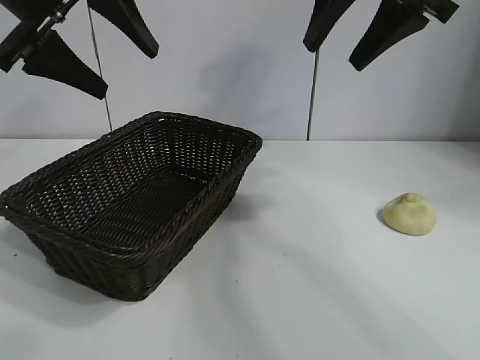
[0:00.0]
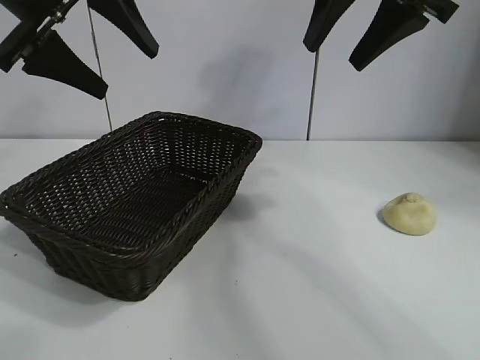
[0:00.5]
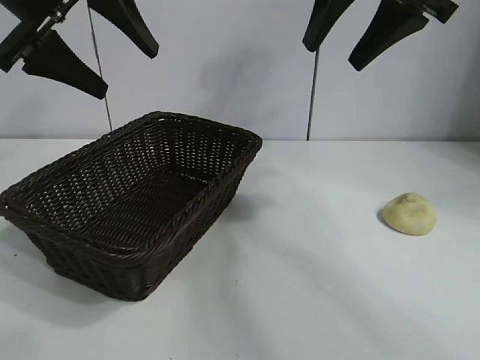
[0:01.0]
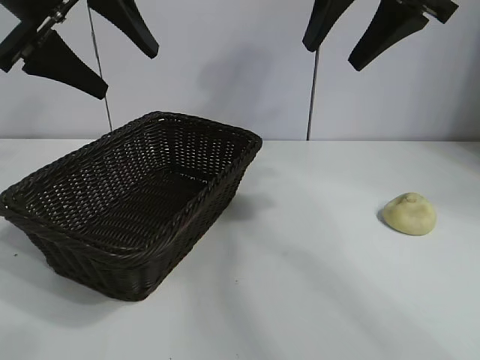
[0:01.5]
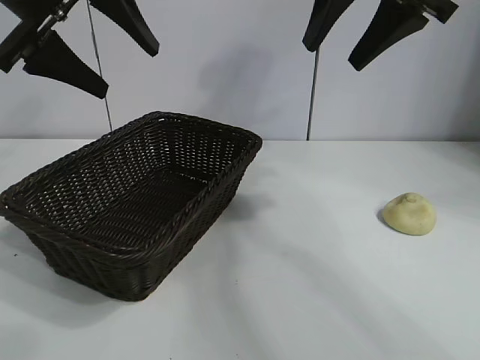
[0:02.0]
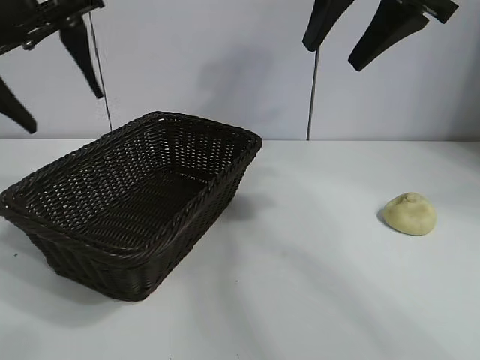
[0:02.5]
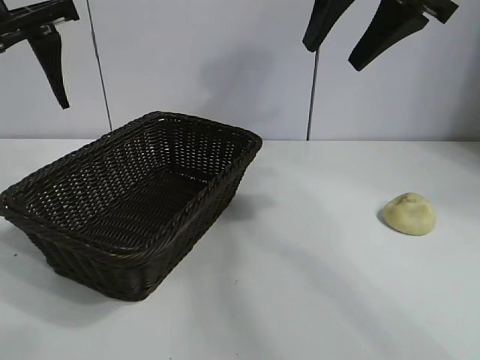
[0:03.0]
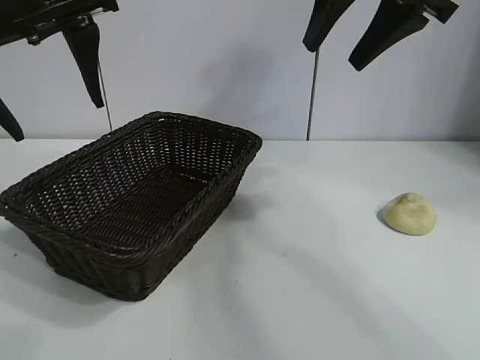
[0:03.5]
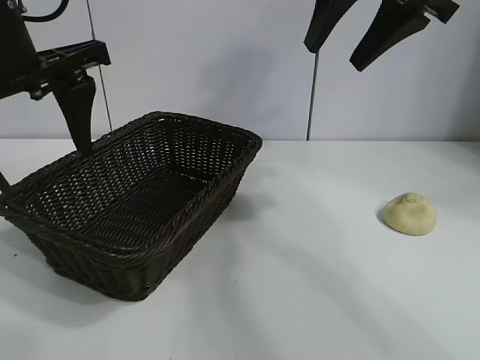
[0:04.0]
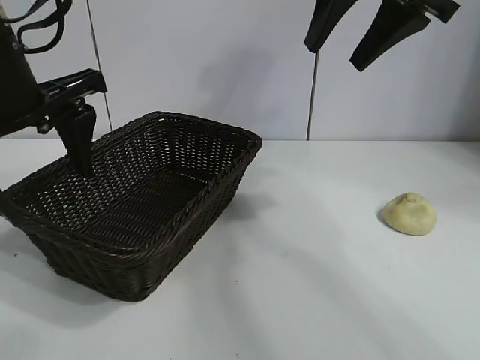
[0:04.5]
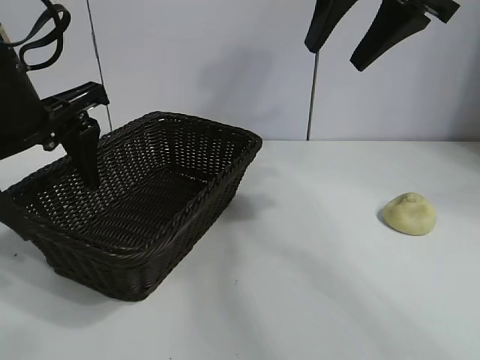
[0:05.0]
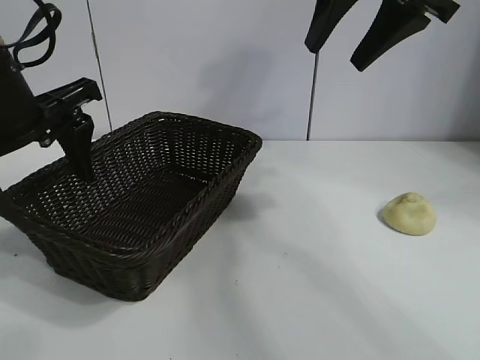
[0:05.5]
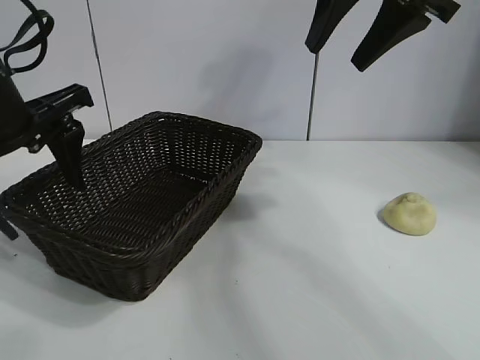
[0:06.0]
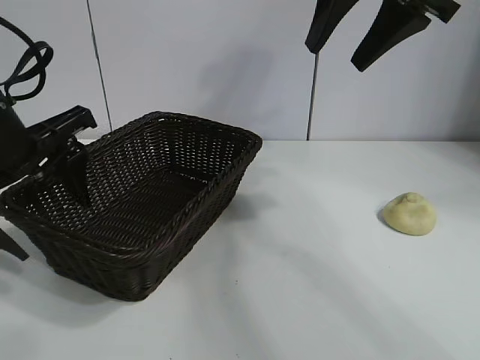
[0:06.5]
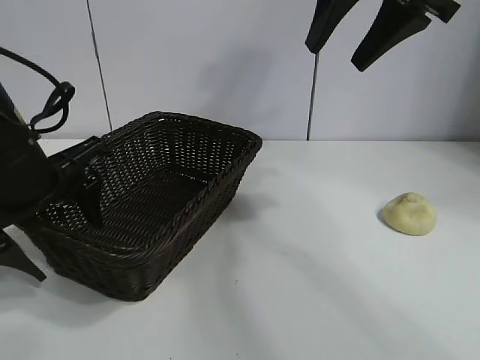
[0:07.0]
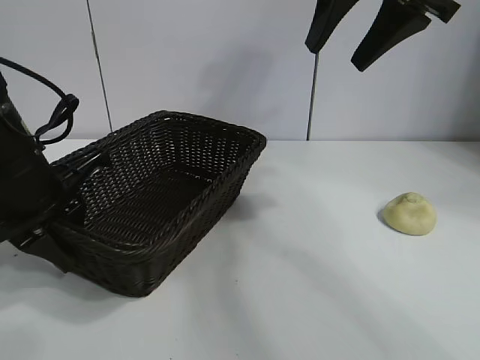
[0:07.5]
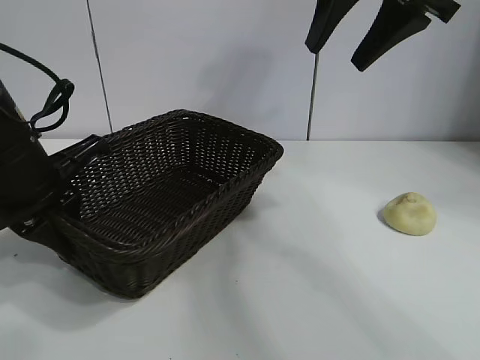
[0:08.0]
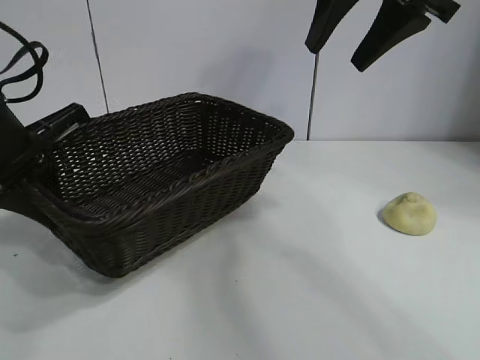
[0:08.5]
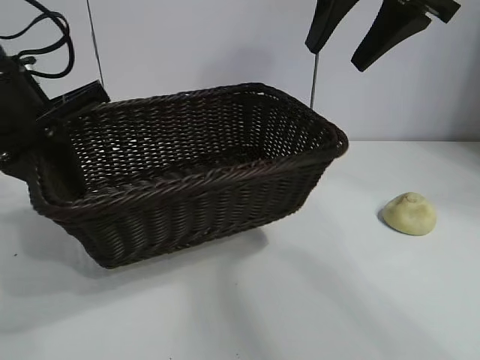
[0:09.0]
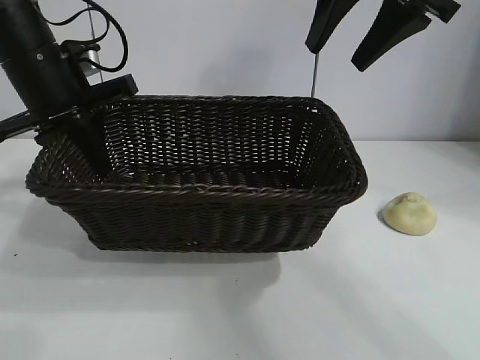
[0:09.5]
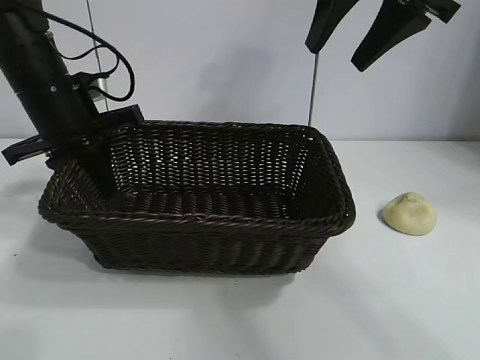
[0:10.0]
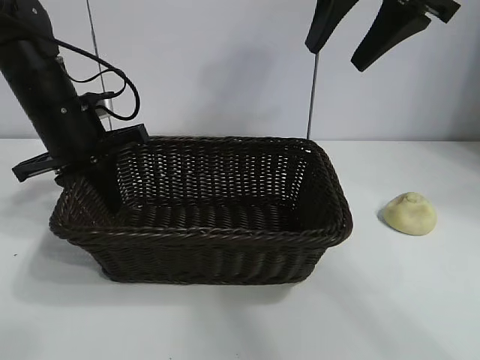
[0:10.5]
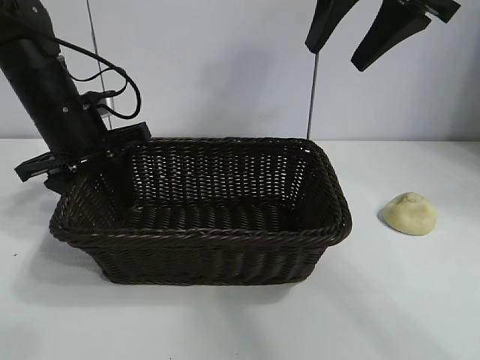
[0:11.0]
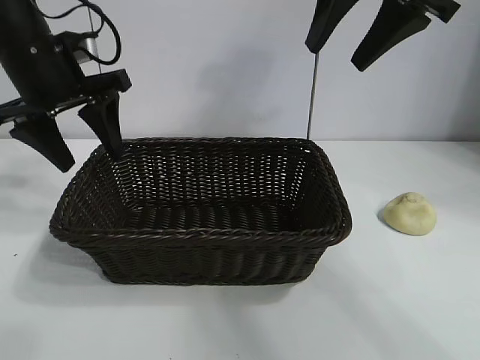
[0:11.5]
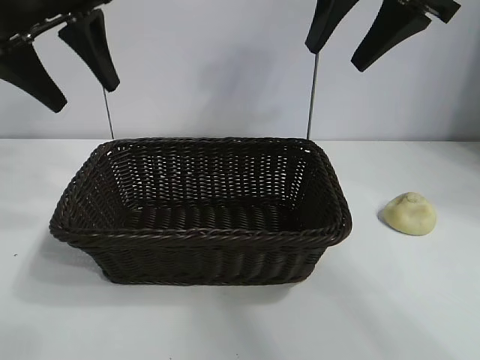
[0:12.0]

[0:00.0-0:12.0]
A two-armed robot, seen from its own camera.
Task of the whole recording: pick up the egg yolk pastry and put it into the basket.
Step, 0:02.0 to 0:07.5: Grasp the basket with left gripper.
Step, 0:08.0 to 0:11.0: Place the basket in the center of view with left gripper.

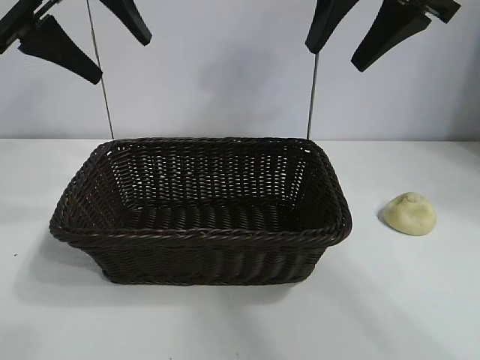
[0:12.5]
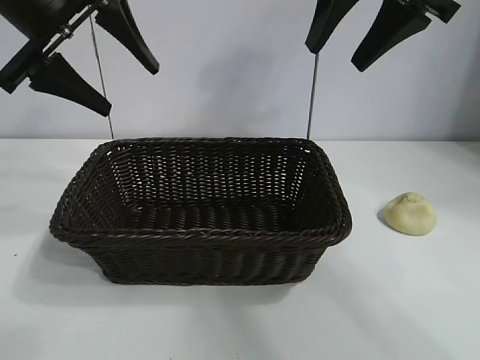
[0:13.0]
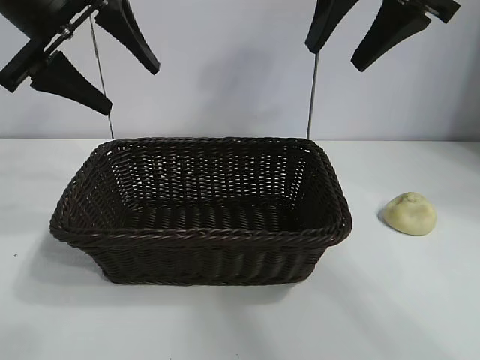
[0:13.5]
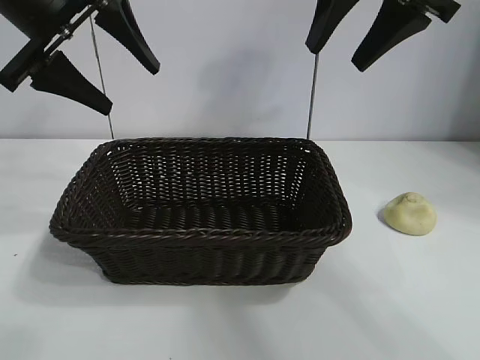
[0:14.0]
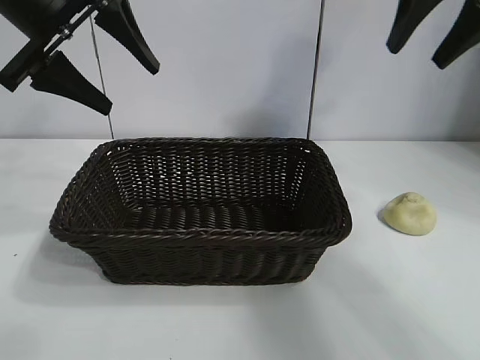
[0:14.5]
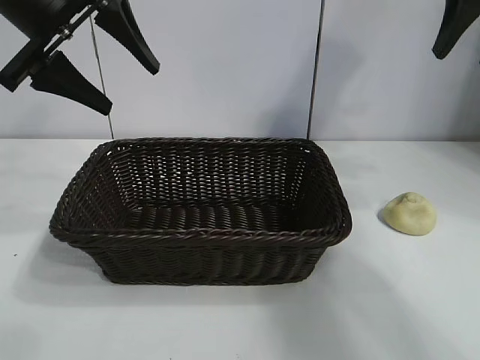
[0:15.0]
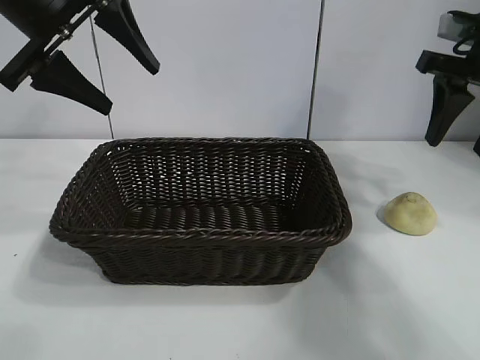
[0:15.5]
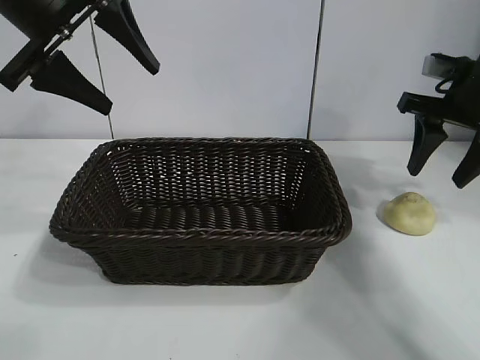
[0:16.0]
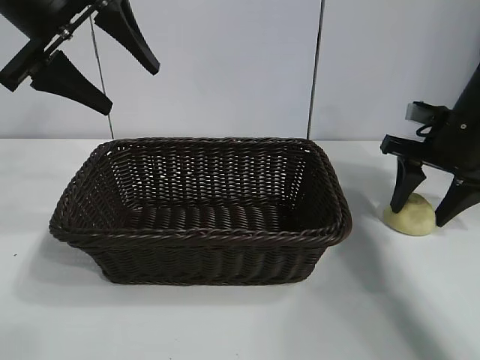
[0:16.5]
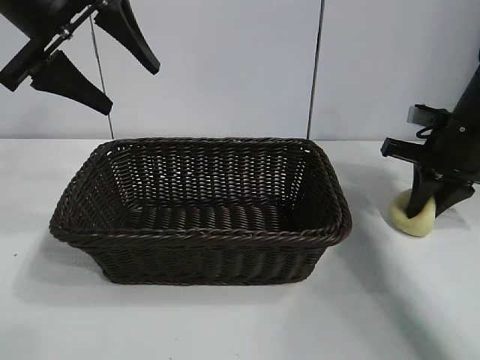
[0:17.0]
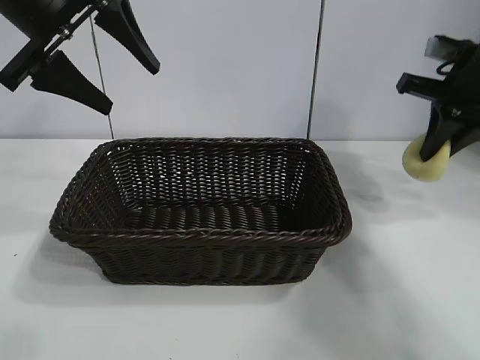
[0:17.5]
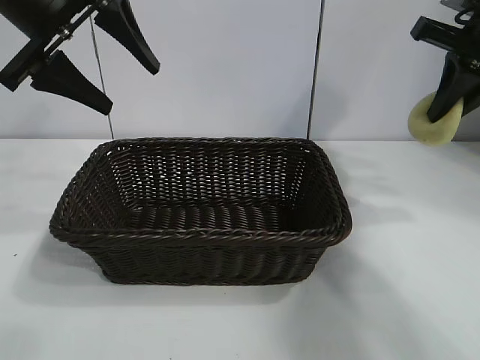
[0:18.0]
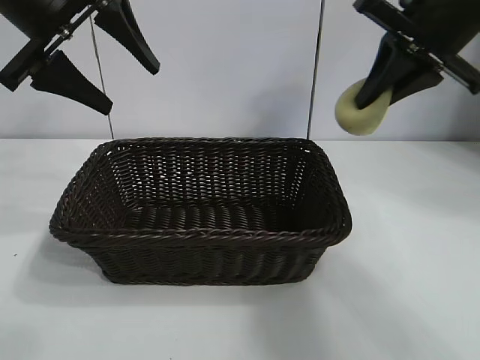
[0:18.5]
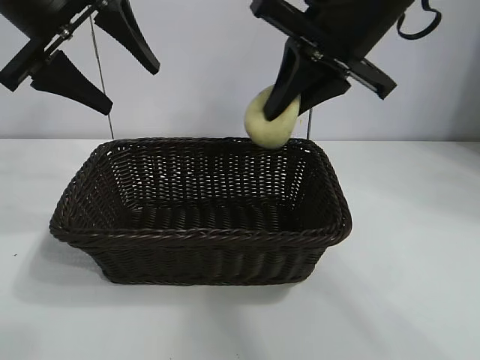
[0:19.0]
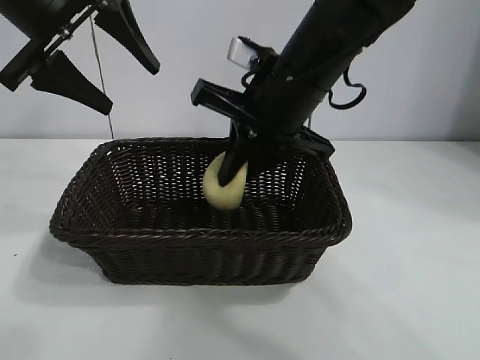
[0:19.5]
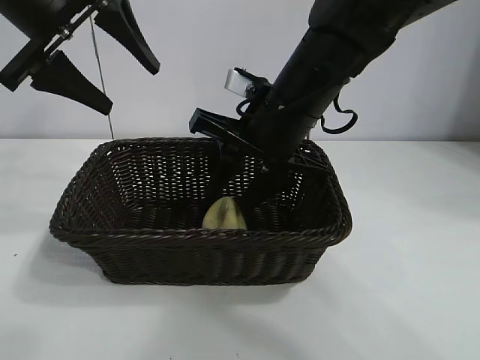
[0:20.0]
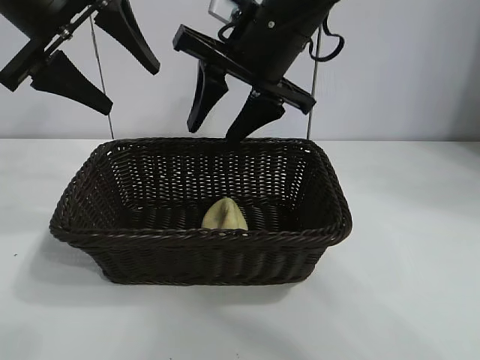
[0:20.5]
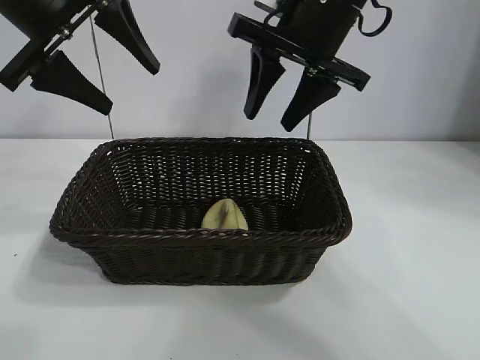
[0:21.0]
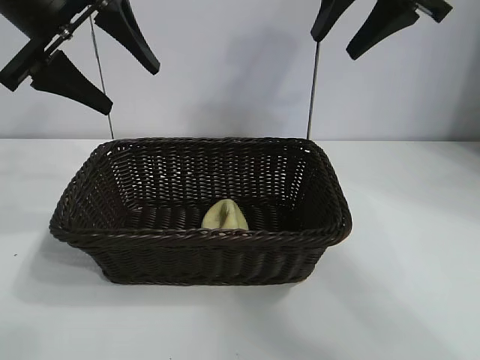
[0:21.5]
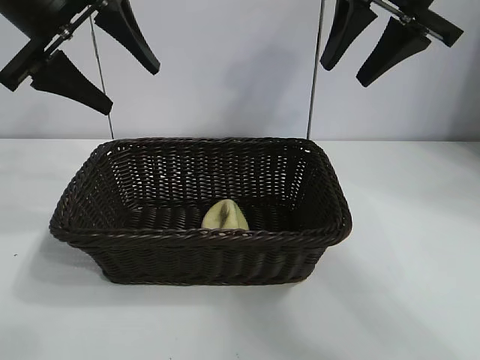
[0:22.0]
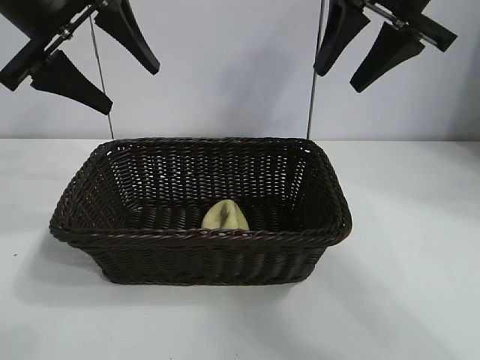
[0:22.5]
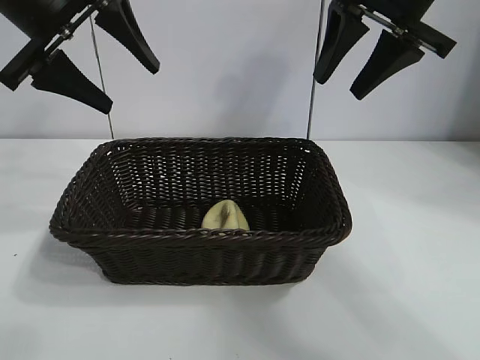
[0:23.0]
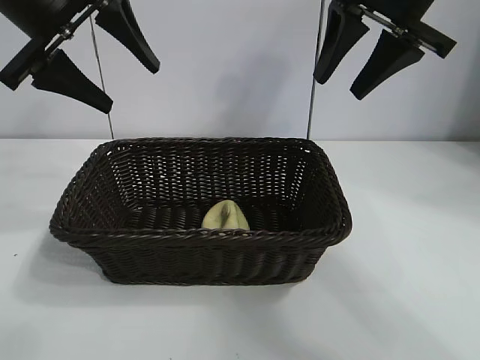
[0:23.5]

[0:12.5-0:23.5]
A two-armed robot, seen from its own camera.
Task of the whole recording: pick up the egg yolk pastry and put it into the basket.
Step, 0:12.5 to 0:17.0: Grasp egg yolk pastry with right gripper.
Step, 0:17.5 to 0:20.0: Place the egg yolk pastry in the basket with right gripper.
